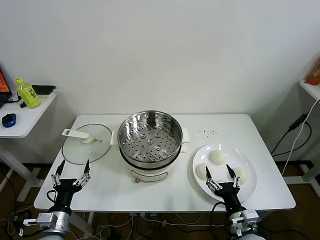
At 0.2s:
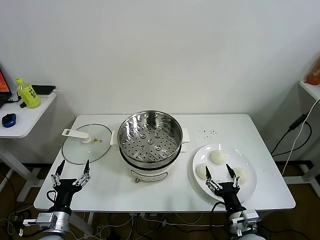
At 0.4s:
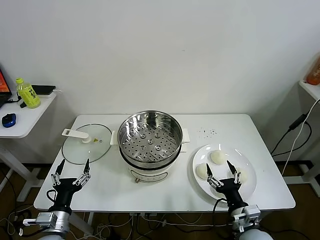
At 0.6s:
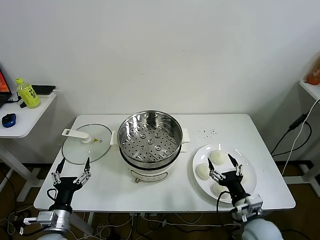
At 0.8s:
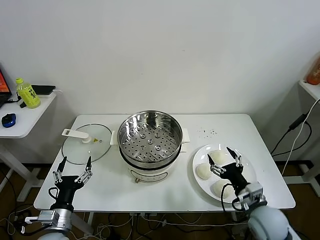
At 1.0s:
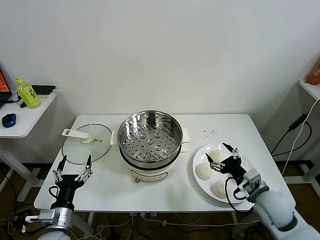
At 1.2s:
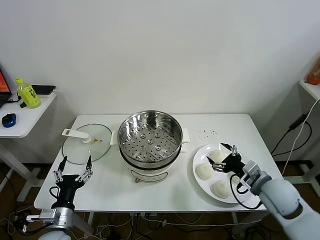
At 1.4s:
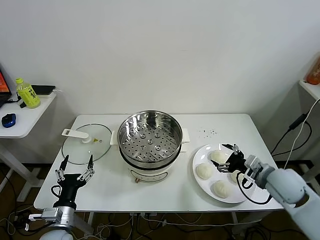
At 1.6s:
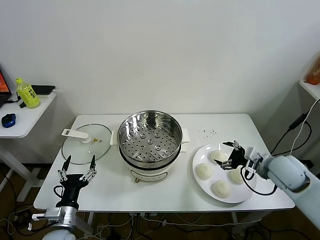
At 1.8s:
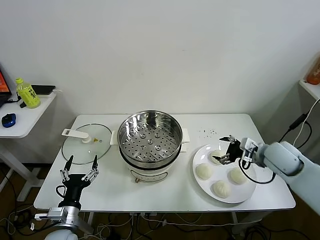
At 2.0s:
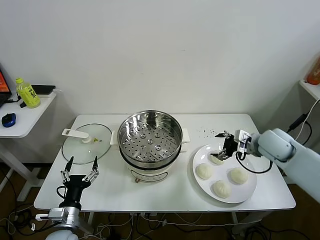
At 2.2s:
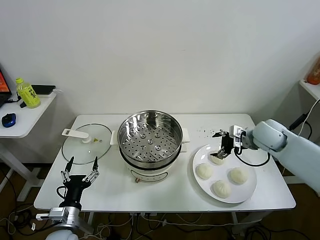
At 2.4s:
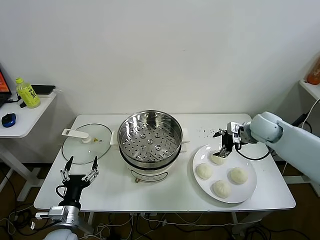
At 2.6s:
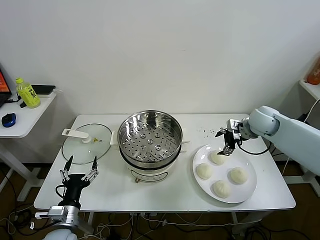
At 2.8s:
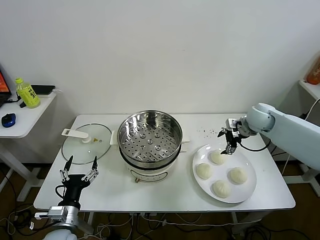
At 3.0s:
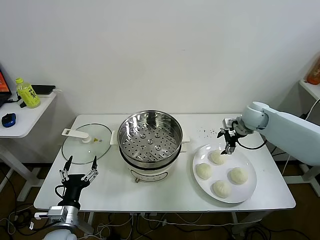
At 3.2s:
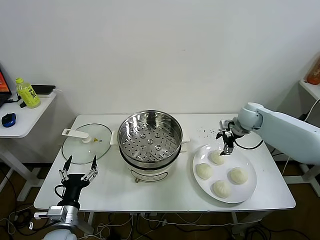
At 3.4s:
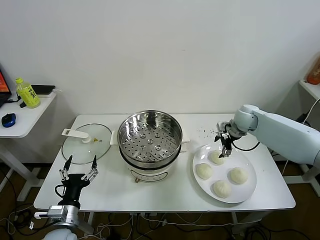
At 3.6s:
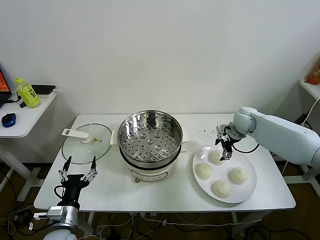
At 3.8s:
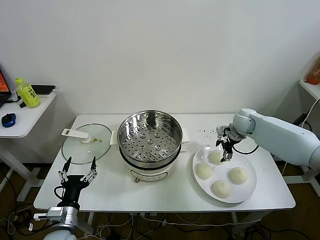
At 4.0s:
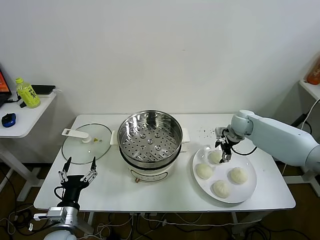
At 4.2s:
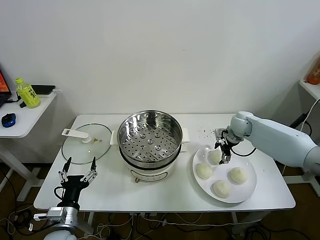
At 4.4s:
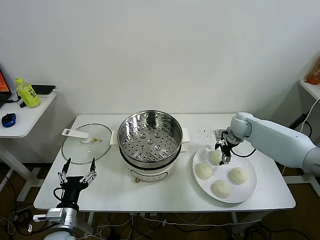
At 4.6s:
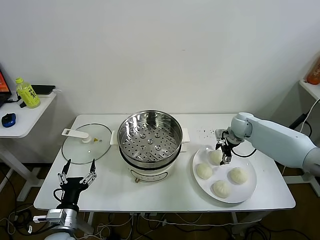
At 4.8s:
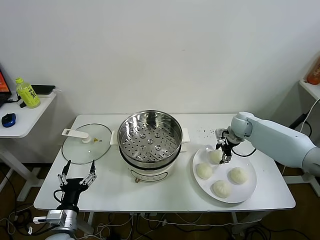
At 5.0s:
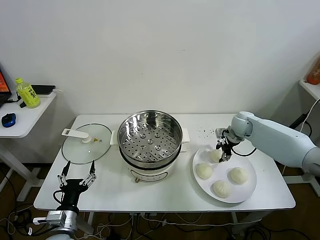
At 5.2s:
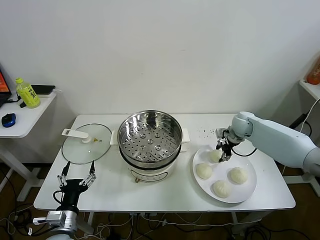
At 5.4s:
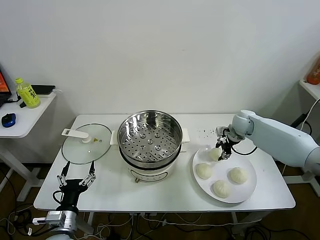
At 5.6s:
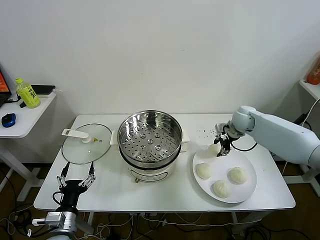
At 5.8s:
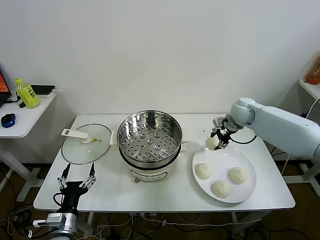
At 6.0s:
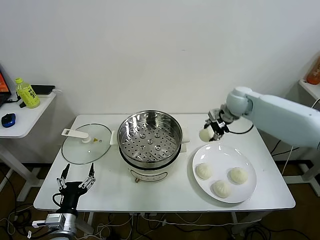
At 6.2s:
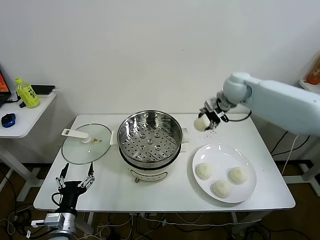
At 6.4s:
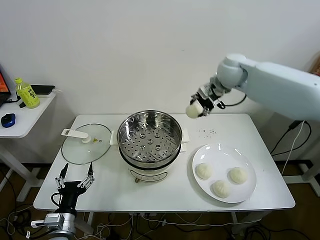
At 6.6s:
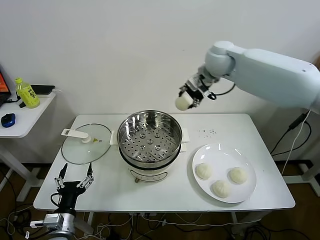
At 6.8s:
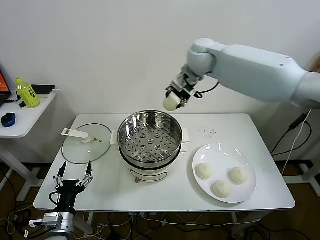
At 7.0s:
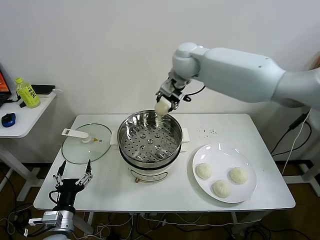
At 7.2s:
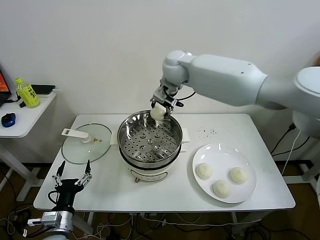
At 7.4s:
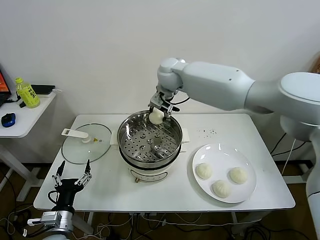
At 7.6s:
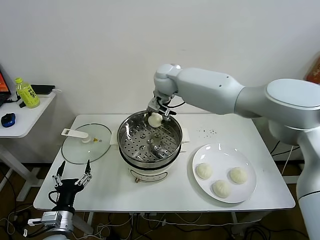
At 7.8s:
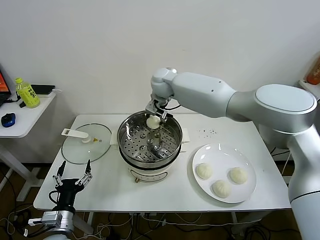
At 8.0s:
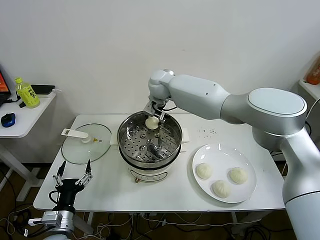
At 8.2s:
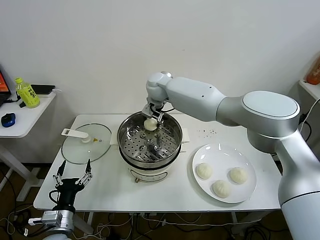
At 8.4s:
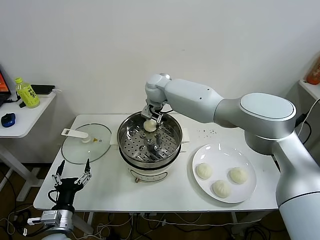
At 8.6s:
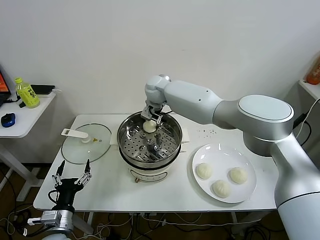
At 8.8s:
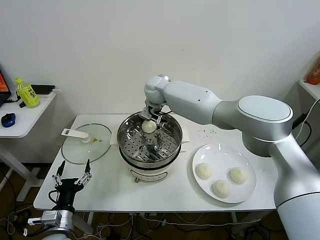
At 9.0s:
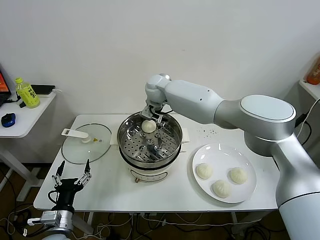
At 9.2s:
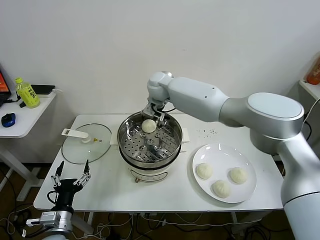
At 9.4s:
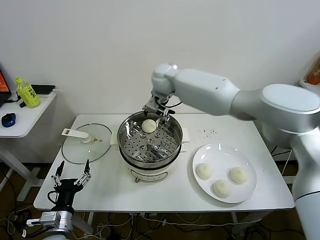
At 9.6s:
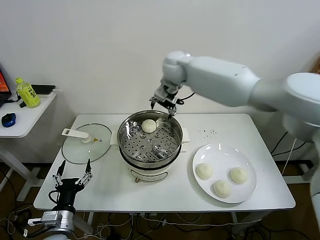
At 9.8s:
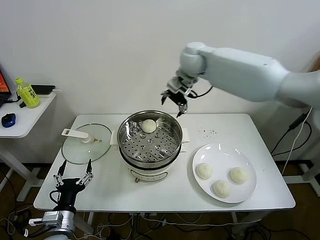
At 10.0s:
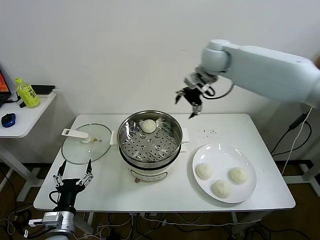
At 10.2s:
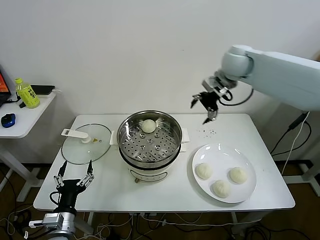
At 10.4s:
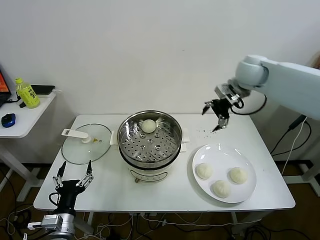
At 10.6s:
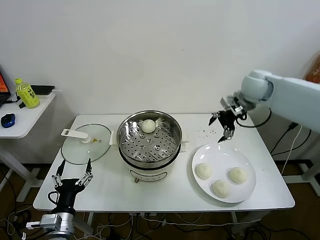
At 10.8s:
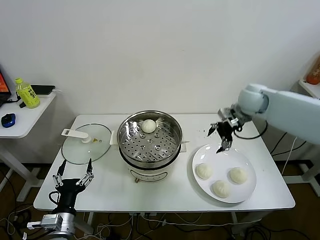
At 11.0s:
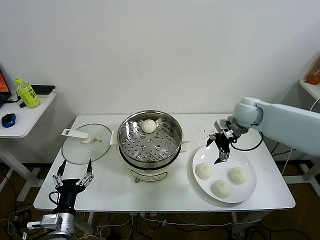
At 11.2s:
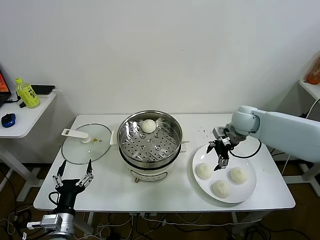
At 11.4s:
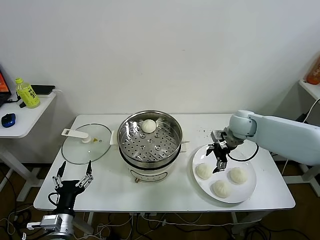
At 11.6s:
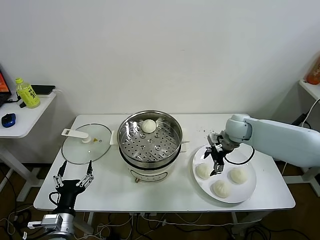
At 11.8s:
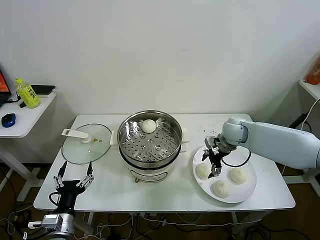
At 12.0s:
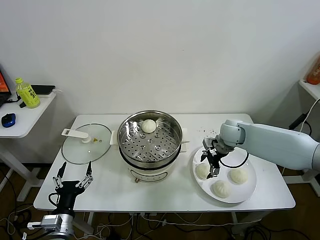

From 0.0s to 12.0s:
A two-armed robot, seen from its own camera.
Task of the whole recording: take steamed baozi put them in steamer.
Step, from 0.0s to 5.0s: Grasp the baozi in the plate with right gripper.
Step, from 5.2s to 8.8s: Place the baozi on the steamer with right gripper.
From 1.6s to 3.0s: The right gripper moves forward, approximately 20 cm.
From 3.0s to 4.4s: The right gripper travels downward by about 5 cm.
From 4.4s to 6.0s: The right gripper moves upward and to the left, some 15 cm, and closes.
From 6.0s to 7.6s: The right gripper is displaced to the left by some 25 cm.
From 7.6s to 9.0s: The right gripper opens up.
From 9.0s to 10.4s: The right gripper goes roughly 30 cm to the right.
From 10.4s to 12.0s: The right gripper is displaced downward by about 20 cm.

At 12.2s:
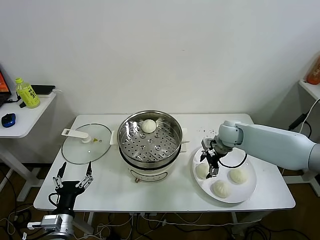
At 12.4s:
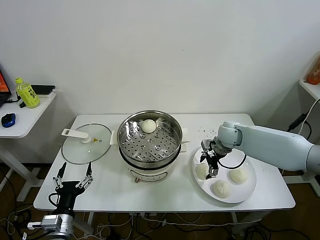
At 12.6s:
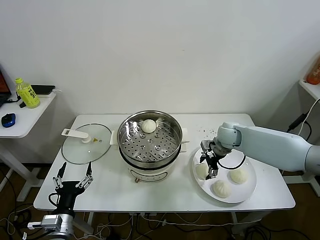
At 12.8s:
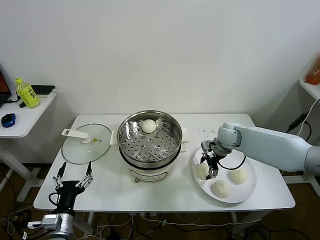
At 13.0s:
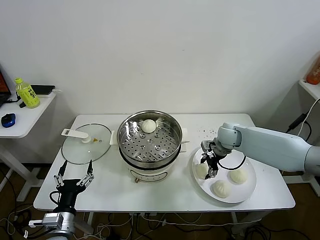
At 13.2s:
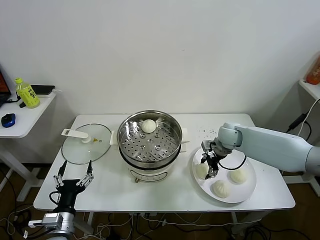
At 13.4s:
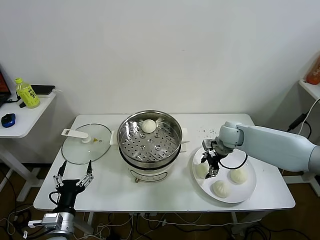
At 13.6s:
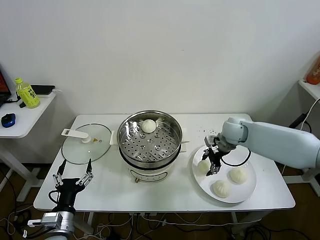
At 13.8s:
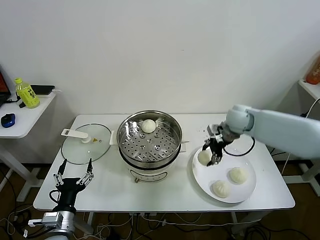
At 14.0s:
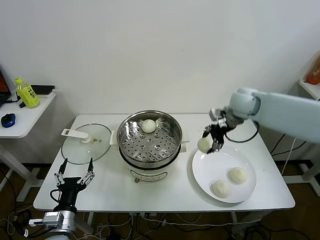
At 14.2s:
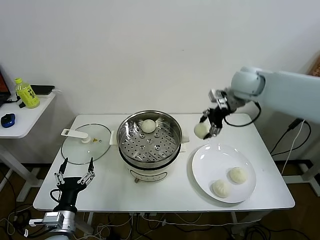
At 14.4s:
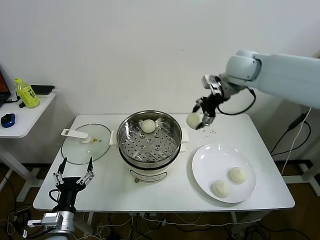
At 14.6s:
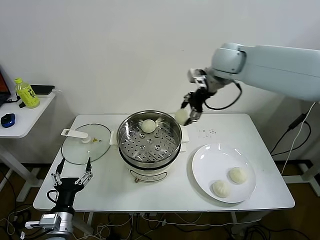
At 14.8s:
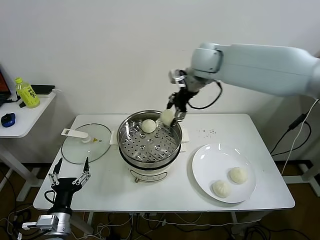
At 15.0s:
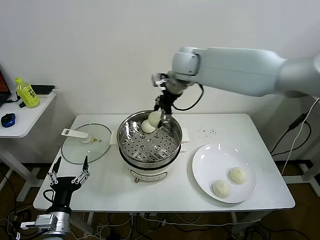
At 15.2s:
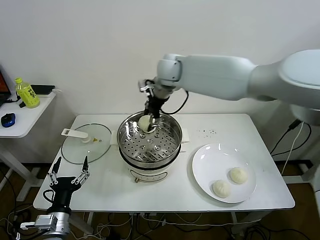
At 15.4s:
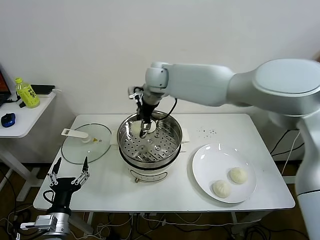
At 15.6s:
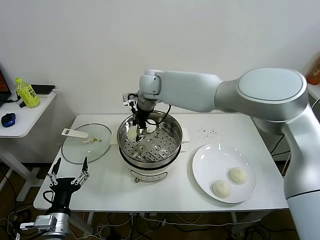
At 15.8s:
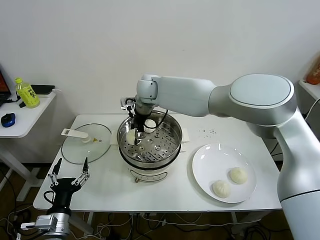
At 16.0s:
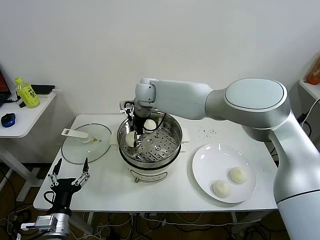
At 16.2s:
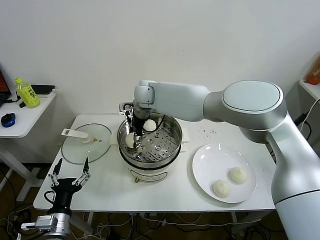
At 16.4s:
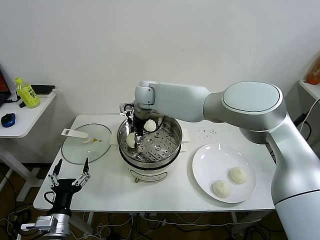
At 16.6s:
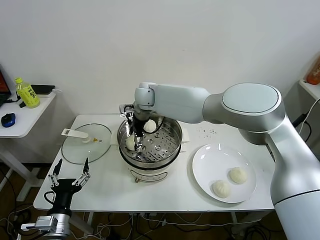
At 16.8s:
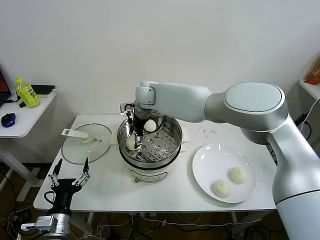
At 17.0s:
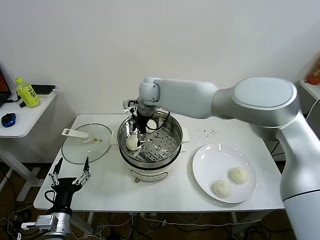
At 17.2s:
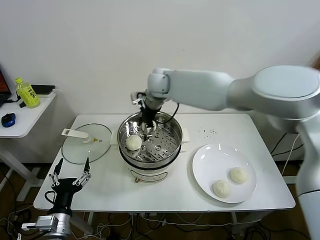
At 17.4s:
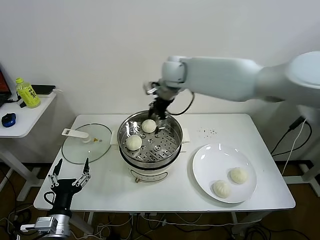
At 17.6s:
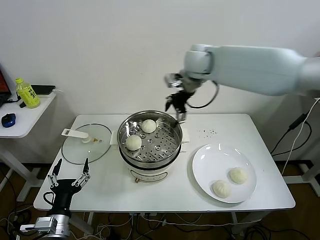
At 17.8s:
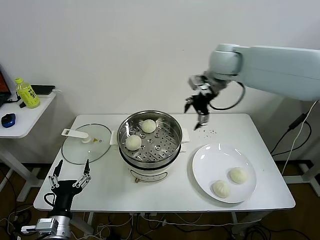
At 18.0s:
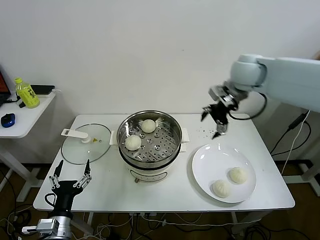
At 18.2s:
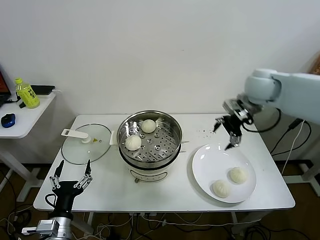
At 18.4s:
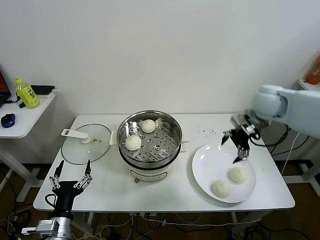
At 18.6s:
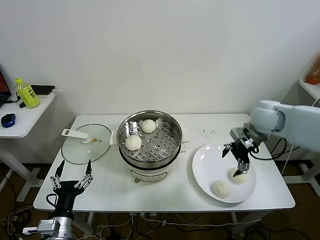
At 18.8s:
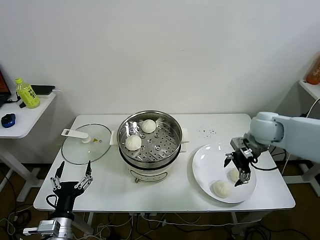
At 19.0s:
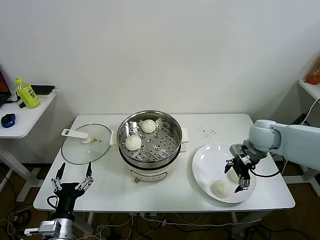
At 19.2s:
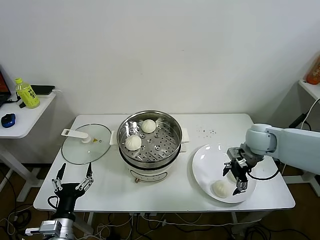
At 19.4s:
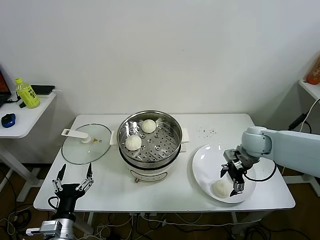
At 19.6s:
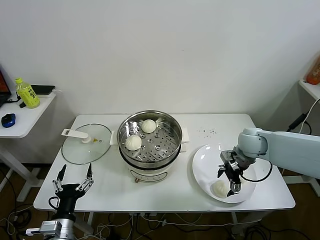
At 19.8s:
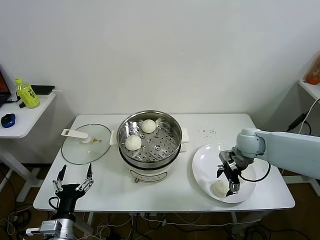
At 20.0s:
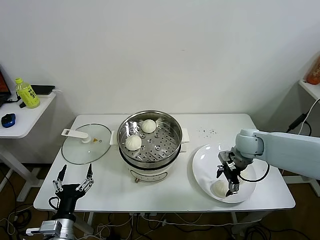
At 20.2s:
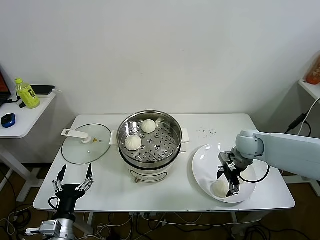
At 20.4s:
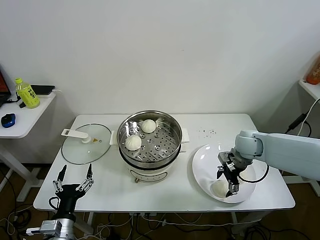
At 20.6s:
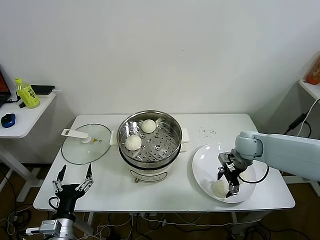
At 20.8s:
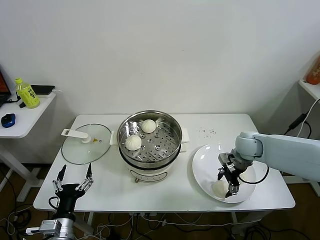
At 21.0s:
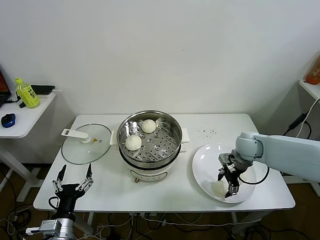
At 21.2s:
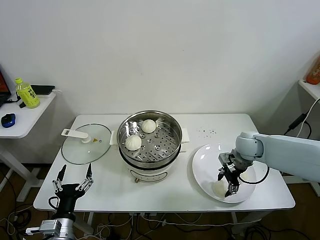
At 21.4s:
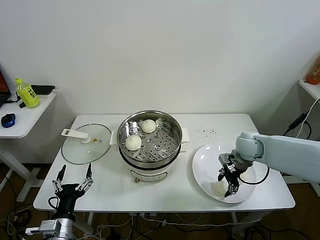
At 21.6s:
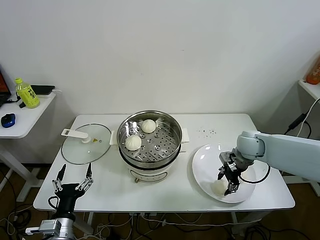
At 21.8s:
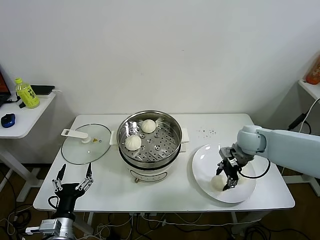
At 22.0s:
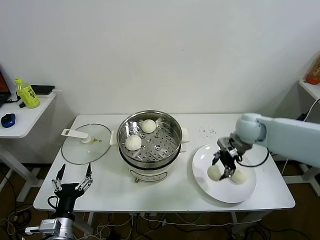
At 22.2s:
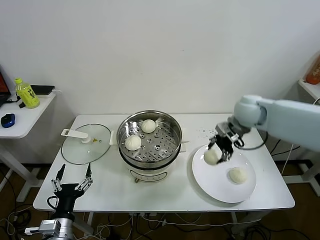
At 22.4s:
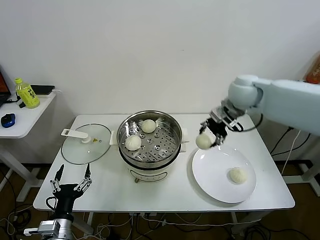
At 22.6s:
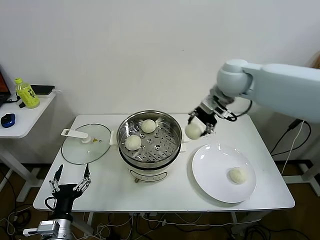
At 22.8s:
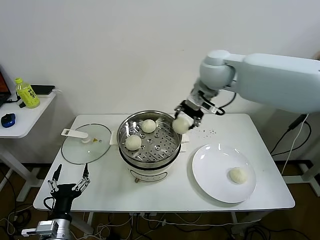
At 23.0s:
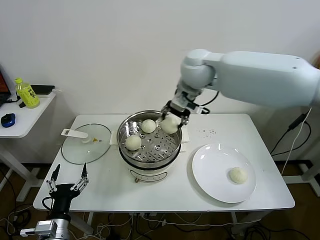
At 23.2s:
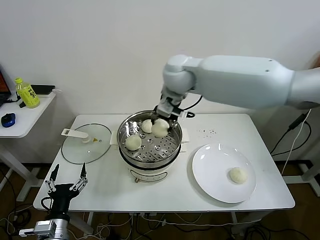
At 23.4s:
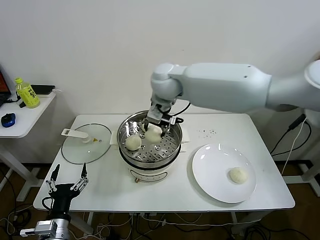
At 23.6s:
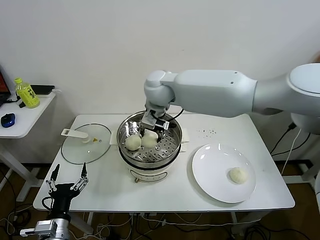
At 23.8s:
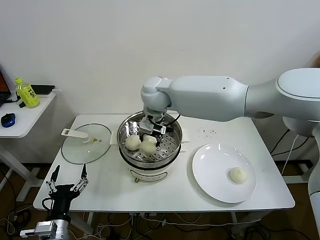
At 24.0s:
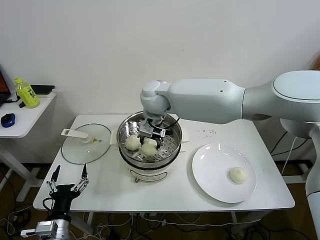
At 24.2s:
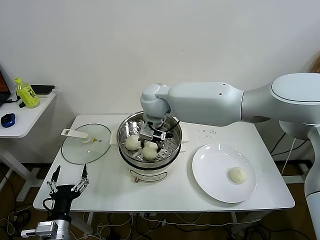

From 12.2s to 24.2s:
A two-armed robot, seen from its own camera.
Task of the whole recording: take steamed baozi put them in steamer.
Step, from 13.2s to 16.8s: Place the baozi on the steamer with right gripper.
Step, from 17.0s to 21.2s: Grasp the baozi in the plate with right gripper.
From 12.2s to 13.8s: The right gripper shifts approximately 10 cm upward, and closes up.
From 13.8s to 15.2s: The right gripper goes about 30 cm to the left and upward.
From 15.2s to 16.6s: The right gripper heads downward and to the left, covering some 10 cm, and opens.
From 16.6s to 18.2s: The right gripper moves to the right, about 35 cm.
From 18.2s to 19.8s: The right gripper moves downward, roughly 20 cm.
From 19.8s to 21.2s: The right gripper closes.
From 21.2s to 22.6s: The right gripper heads upward and to the left, covering approximately 30 cm.
From 22.6s to 24.2s: The right gripper moves to the left, about 20 cm.
